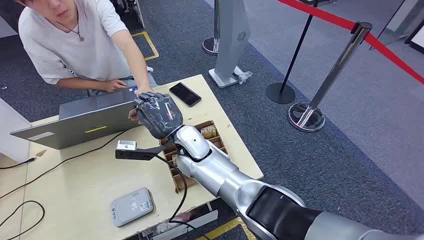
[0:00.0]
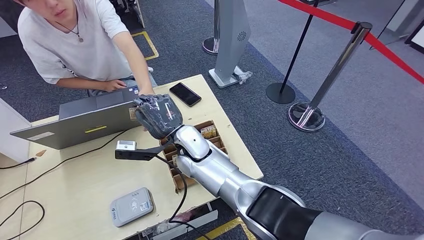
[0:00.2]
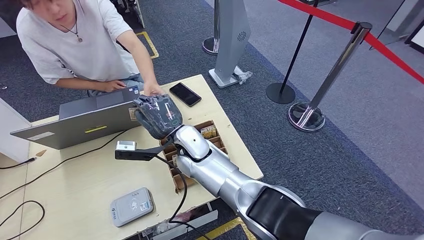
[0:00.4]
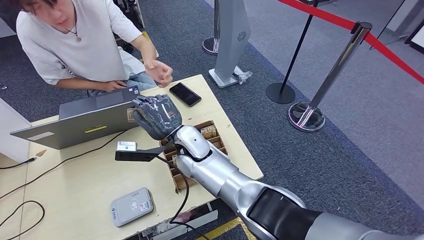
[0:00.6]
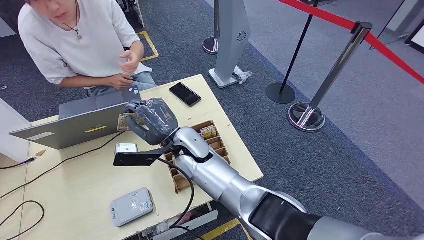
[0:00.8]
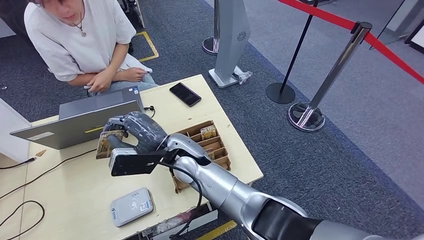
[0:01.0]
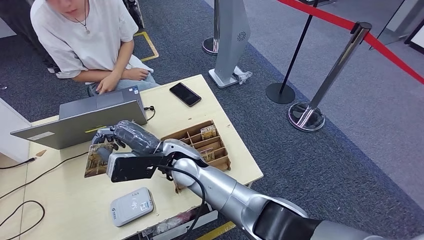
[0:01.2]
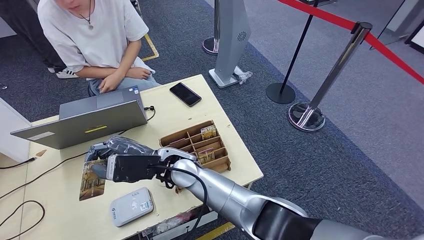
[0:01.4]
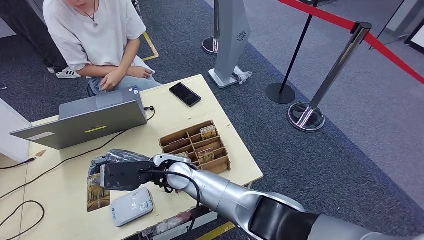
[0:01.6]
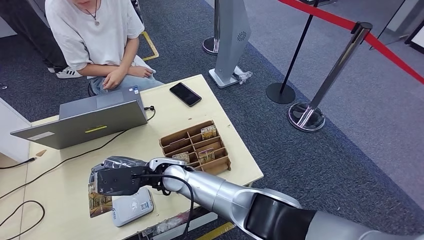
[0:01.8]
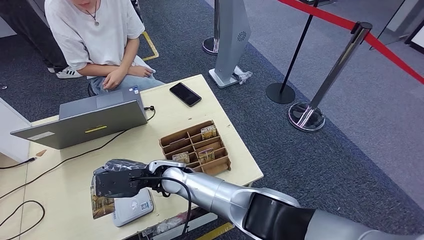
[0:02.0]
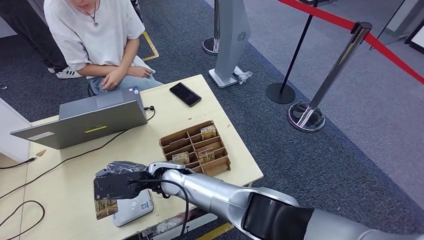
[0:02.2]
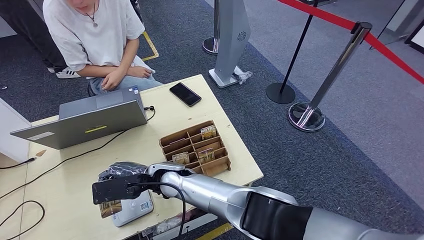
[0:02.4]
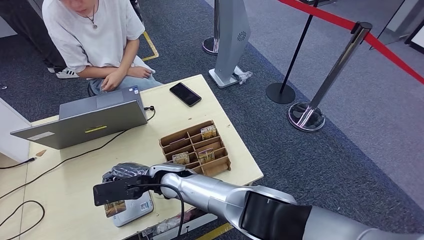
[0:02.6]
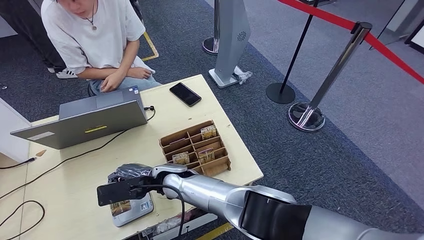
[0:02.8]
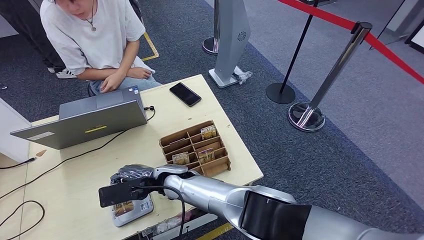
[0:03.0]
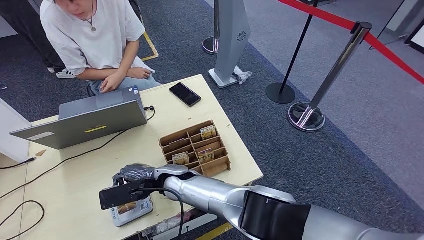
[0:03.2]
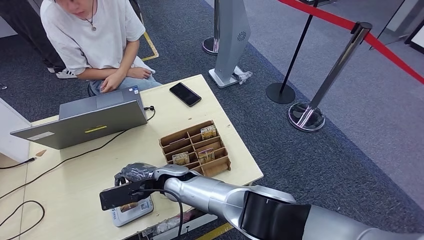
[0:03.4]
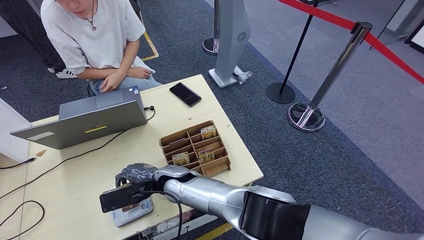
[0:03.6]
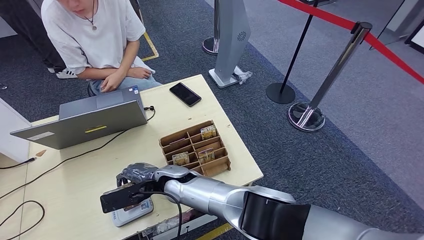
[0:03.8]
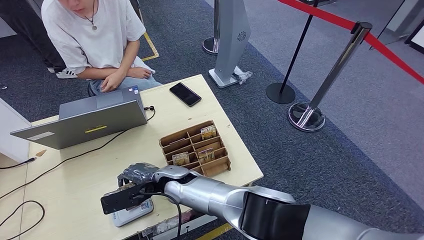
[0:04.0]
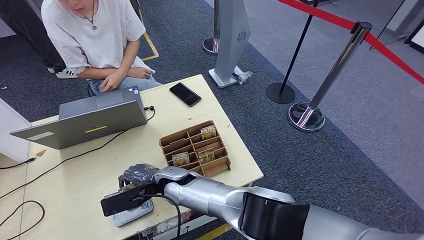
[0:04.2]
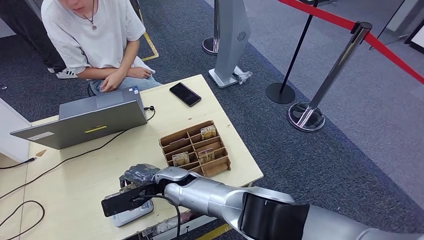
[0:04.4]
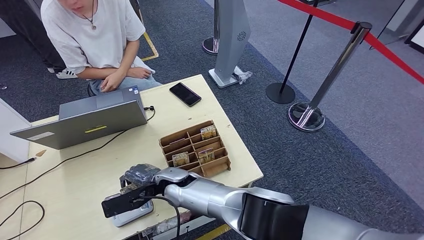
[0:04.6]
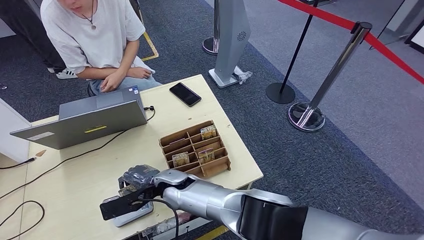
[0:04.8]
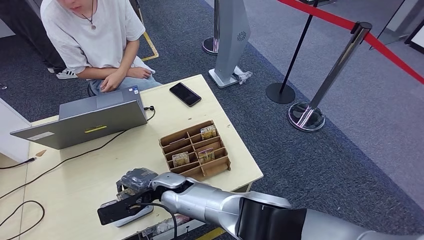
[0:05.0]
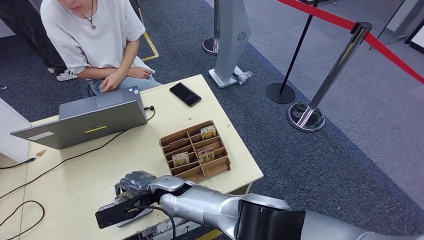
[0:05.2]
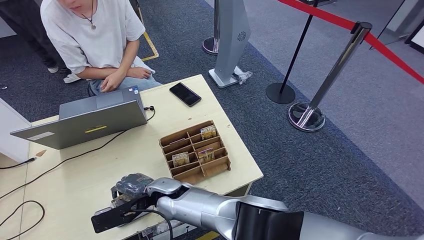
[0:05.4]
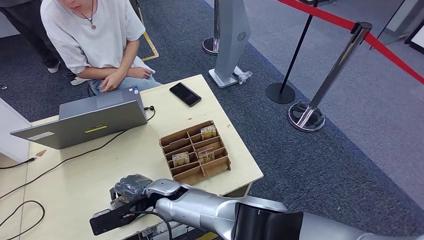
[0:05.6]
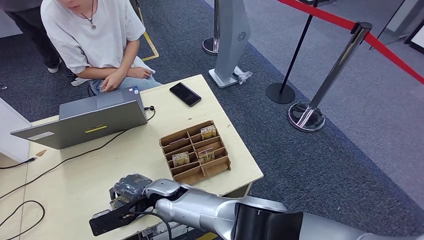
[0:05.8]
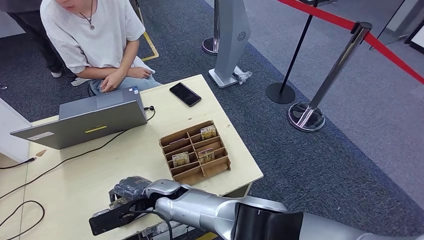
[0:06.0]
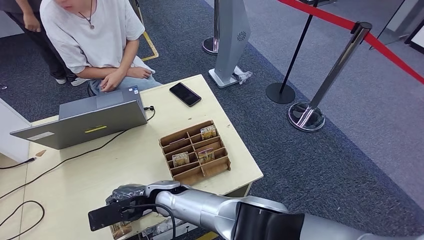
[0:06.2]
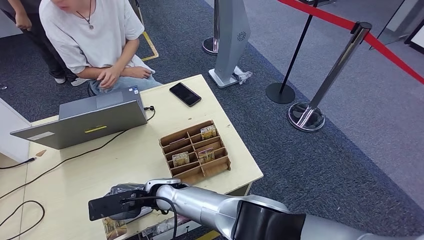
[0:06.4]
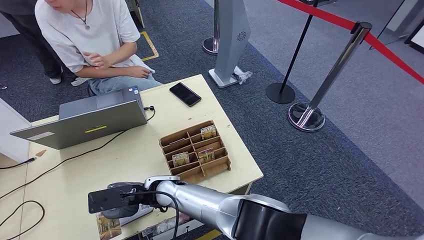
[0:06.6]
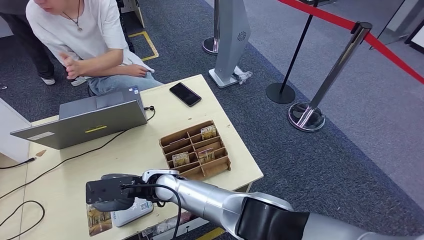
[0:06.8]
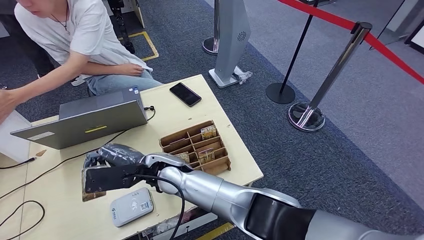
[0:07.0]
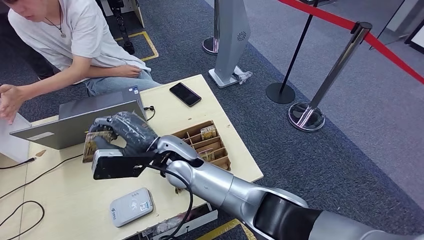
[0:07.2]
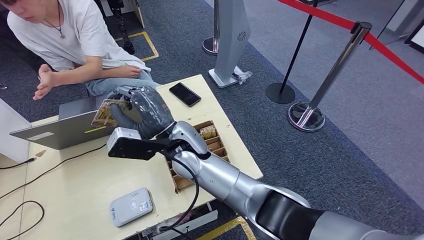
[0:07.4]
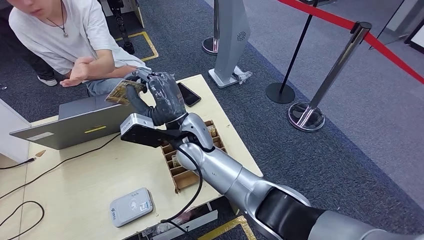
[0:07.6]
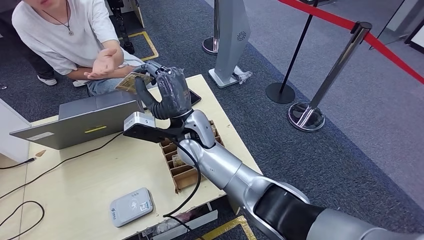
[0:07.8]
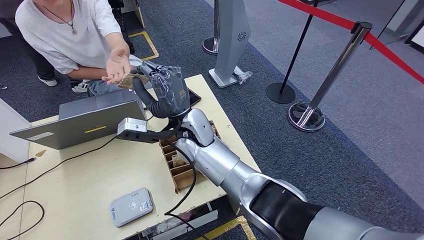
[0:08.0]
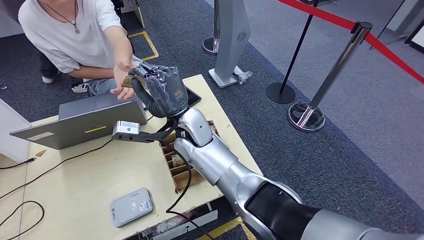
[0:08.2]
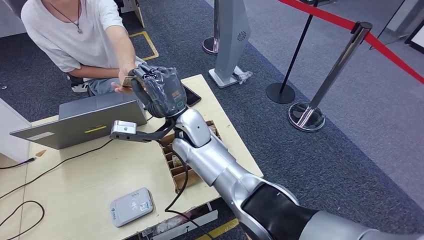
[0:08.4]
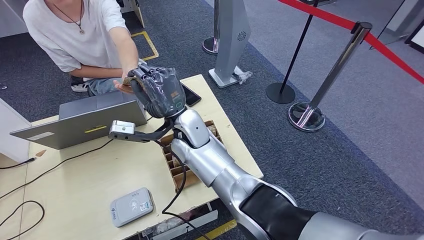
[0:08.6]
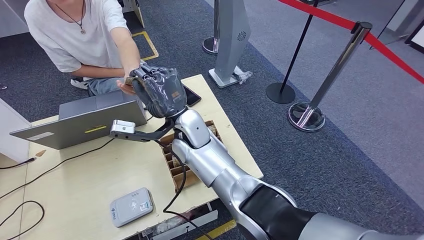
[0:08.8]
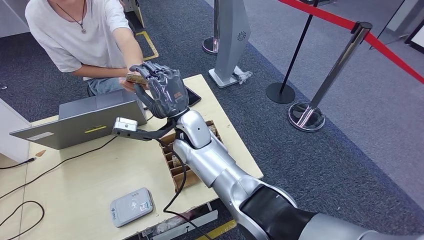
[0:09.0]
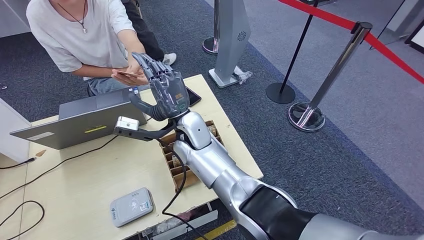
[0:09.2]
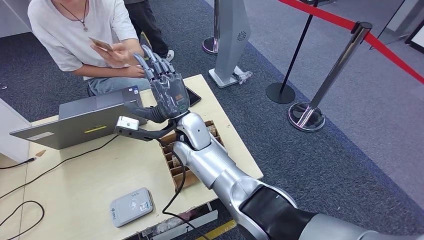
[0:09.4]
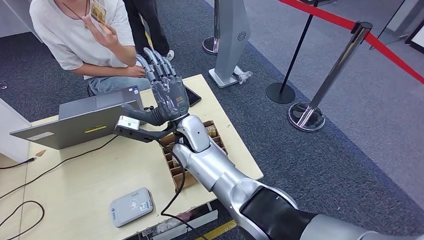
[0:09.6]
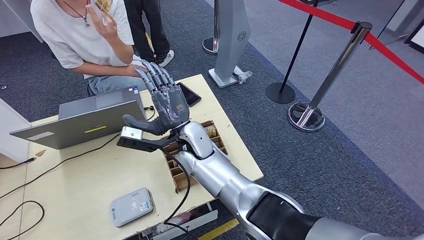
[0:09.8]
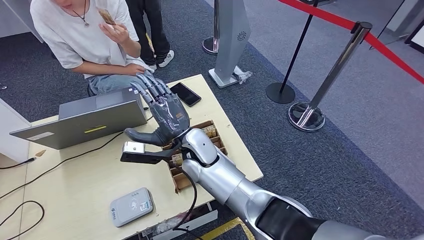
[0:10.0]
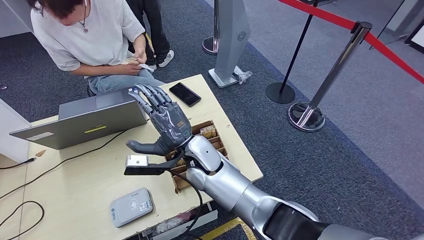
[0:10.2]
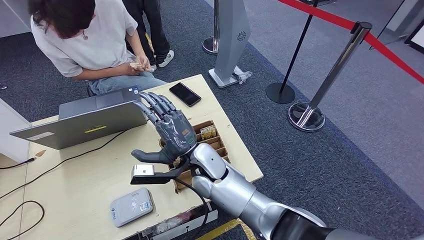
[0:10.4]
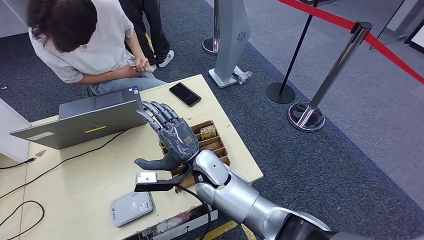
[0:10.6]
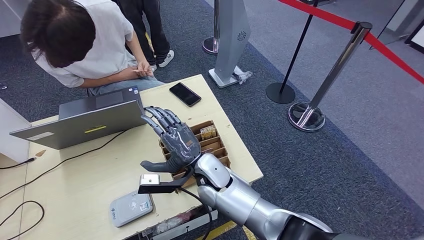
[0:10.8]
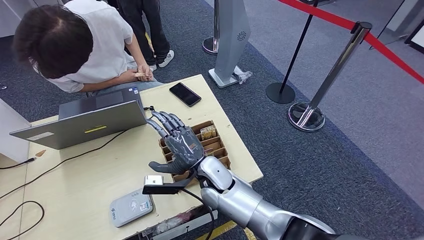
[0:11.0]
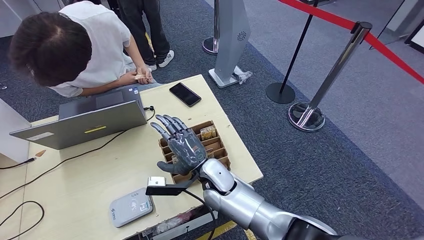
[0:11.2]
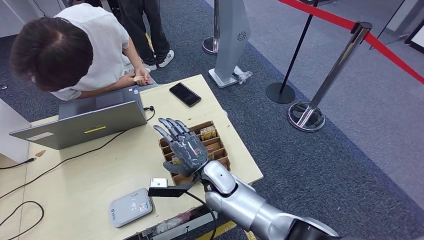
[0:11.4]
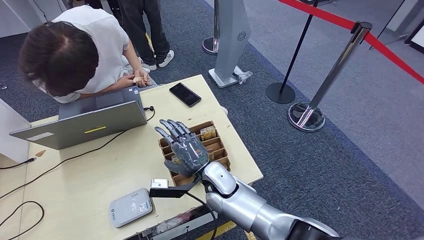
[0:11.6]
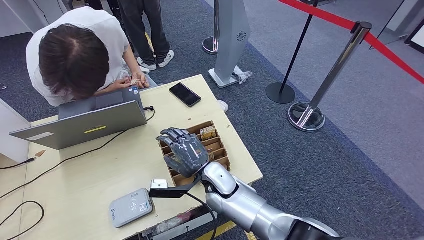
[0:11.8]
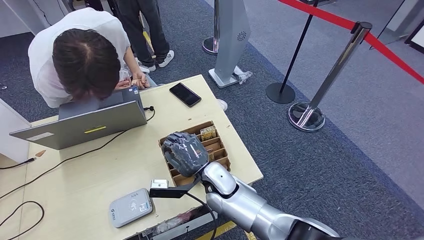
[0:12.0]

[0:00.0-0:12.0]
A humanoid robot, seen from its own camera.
Step, 0:00.0 to 0:01.2: Take the ID card from the person's hand.
Step, 0:01.6 to 0:05.2: Place the ID card on the card reader.
Step, 0:05.4 to 0:10.4: Hand the ID card to the person.
0:01.6 to 0:03.0: The right hand goes roughly 5 cm downward.
0:03.0 to 0:06.0: The hands stay close to where they were, moving slightly.
0:09.0 to 0:10.4: The right hand travels backward and downward by roughly 10 cm.

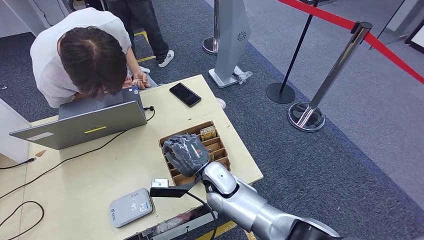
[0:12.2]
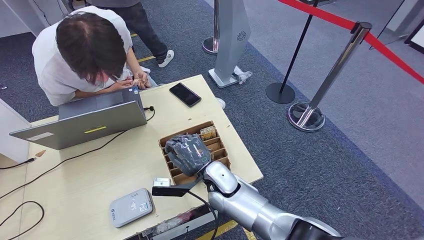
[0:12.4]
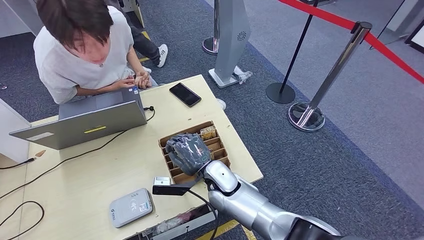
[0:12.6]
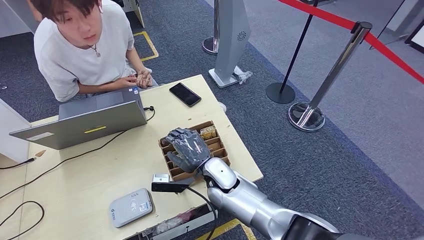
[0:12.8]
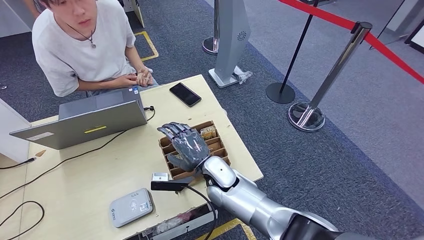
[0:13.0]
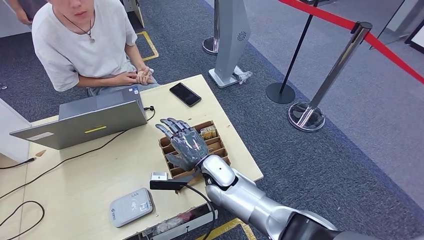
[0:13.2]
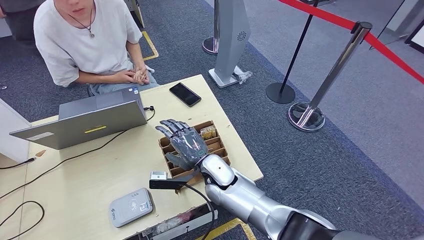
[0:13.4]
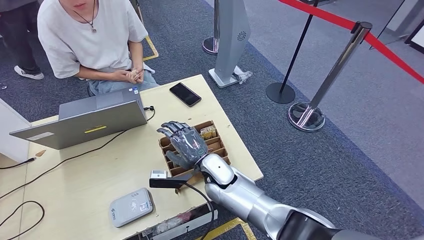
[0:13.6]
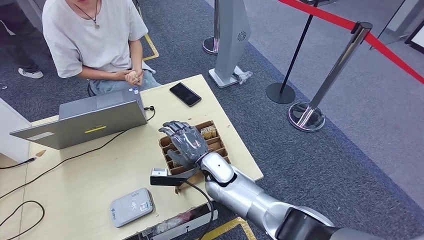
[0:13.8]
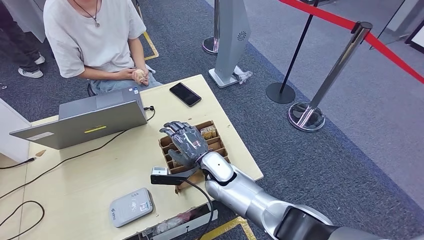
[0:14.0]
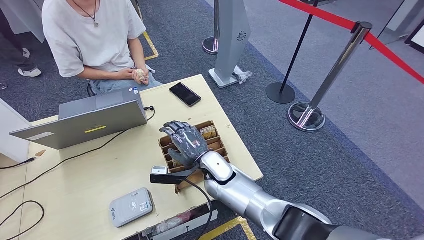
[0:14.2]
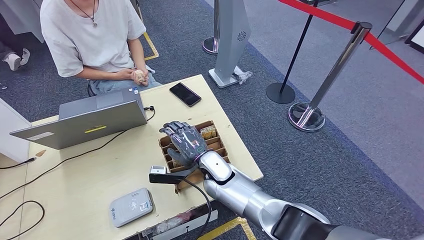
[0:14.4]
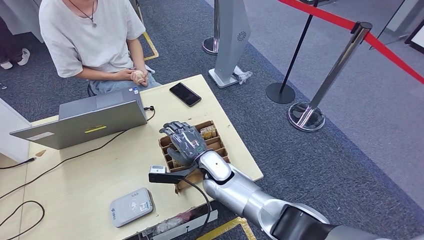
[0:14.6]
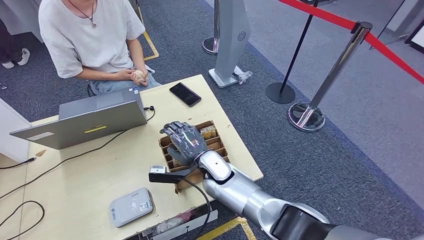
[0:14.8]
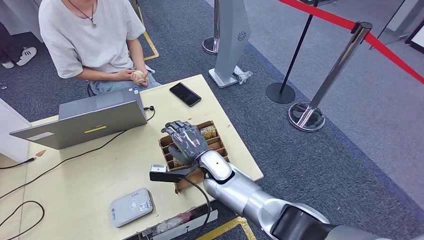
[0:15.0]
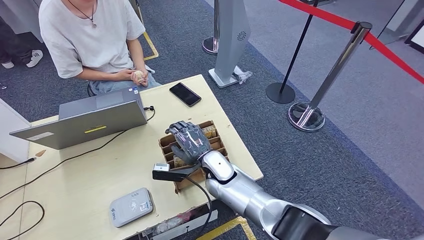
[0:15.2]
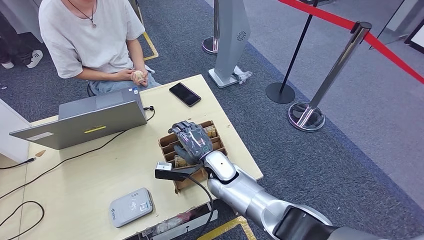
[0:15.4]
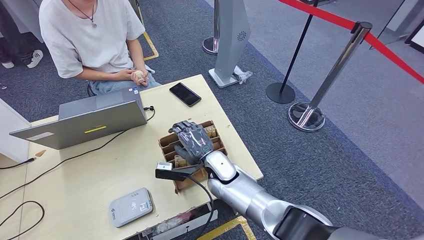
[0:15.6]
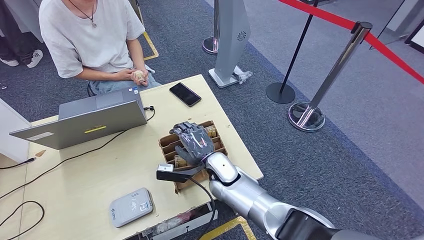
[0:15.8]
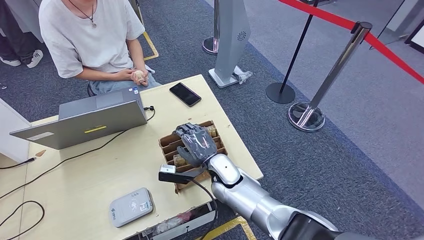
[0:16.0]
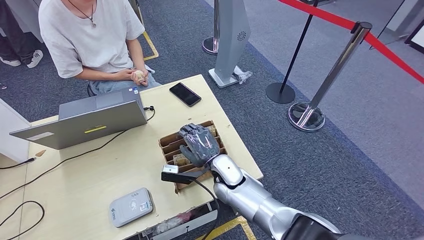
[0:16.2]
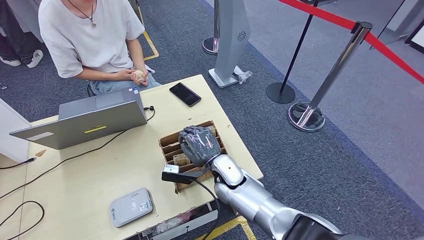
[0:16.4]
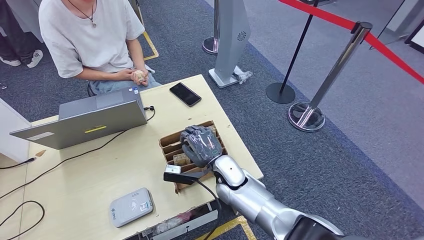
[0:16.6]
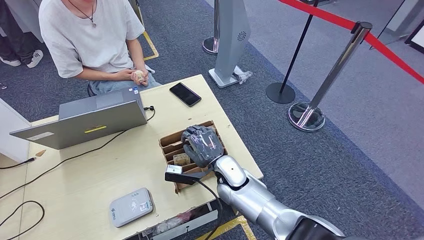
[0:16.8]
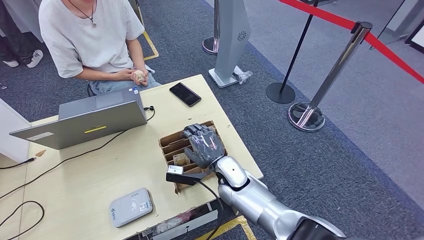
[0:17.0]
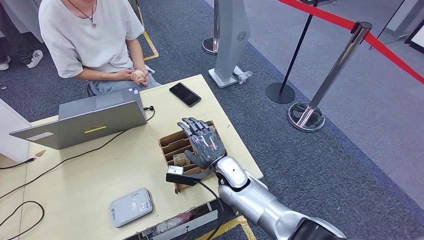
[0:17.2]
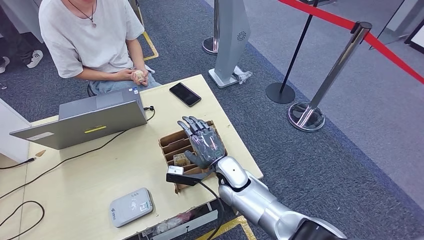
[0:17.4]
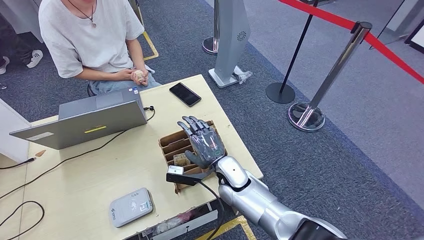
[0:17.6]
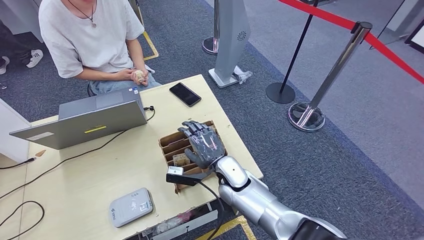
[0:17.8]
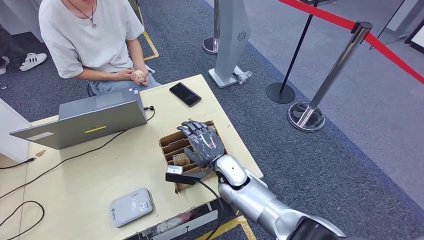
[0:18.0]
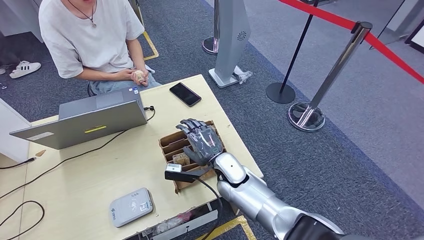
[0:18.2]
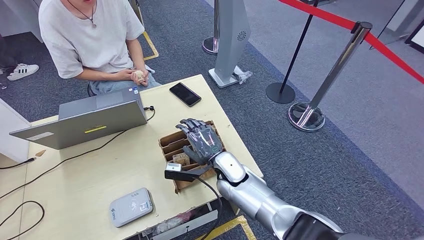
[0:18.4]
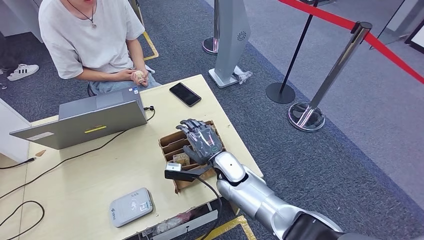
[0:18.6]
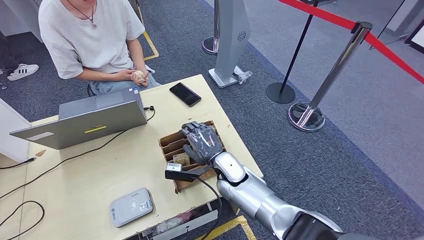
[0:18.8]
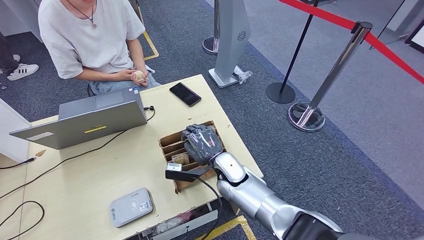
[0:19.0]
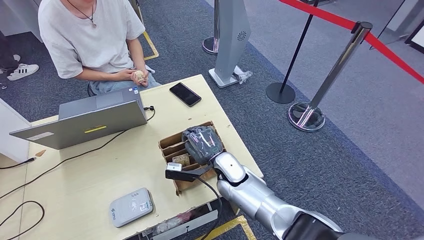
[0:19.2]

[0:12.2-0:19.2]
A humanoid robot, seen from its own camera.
0:13.6 to 0:16.4: The hands move only a little.
0:16.4 to 0:19.2: The two hands keep their place.
